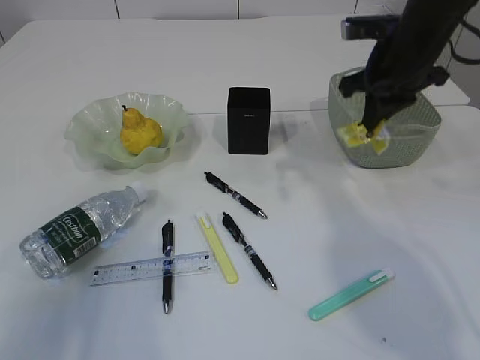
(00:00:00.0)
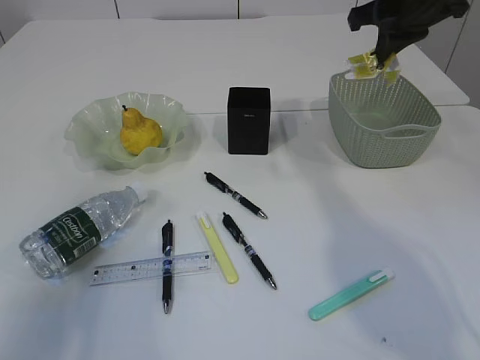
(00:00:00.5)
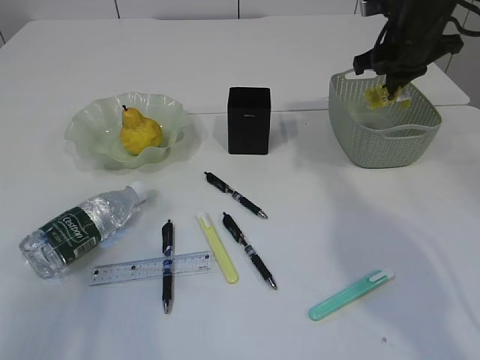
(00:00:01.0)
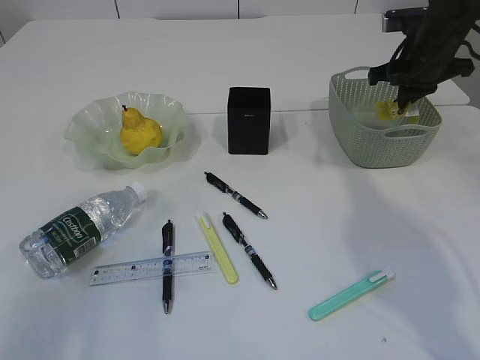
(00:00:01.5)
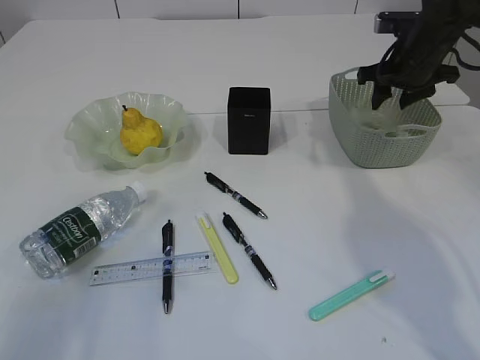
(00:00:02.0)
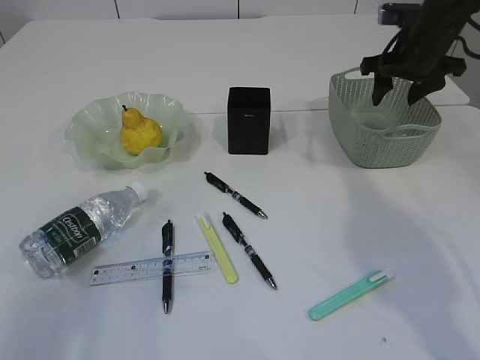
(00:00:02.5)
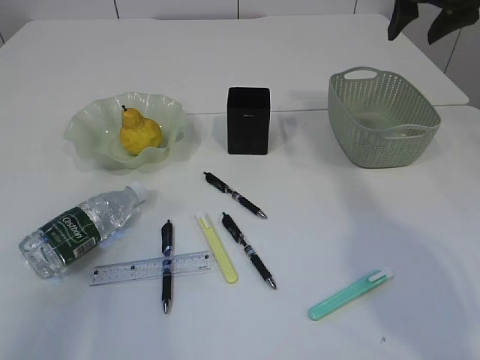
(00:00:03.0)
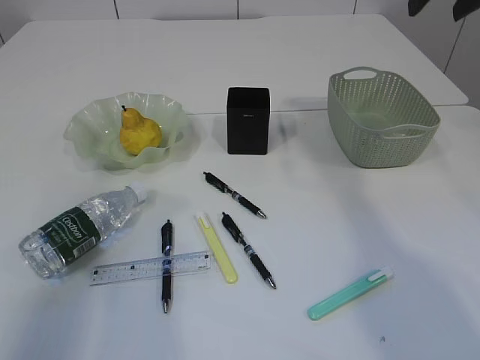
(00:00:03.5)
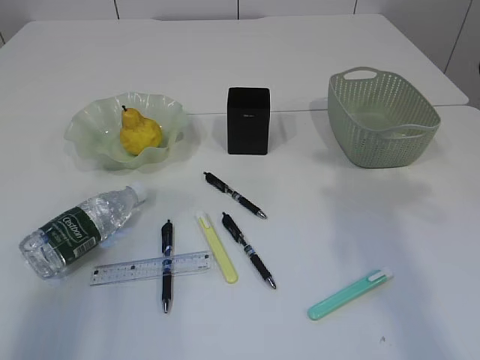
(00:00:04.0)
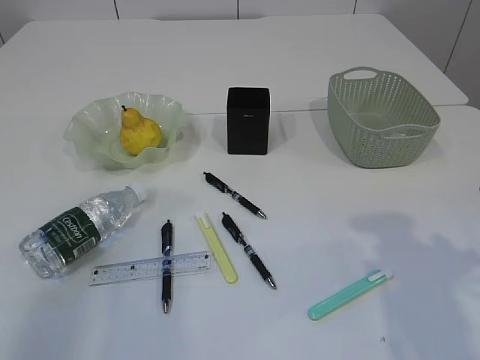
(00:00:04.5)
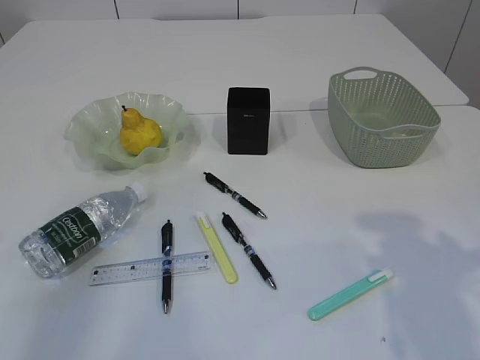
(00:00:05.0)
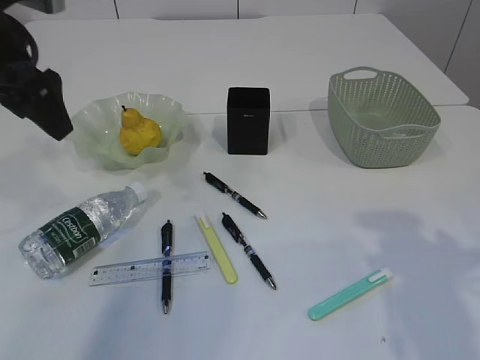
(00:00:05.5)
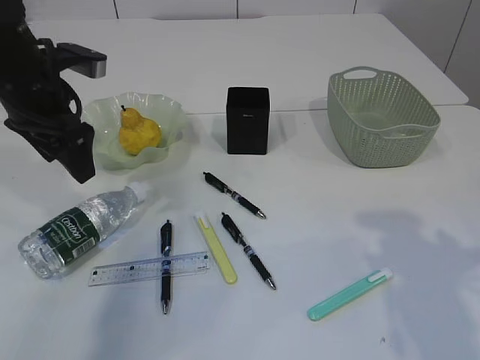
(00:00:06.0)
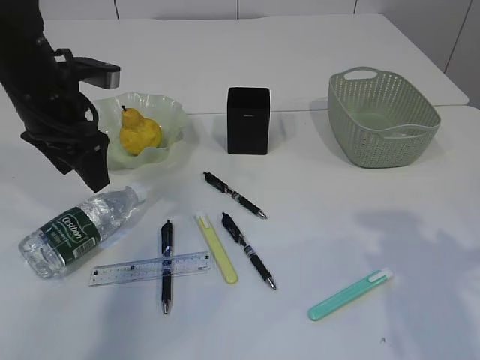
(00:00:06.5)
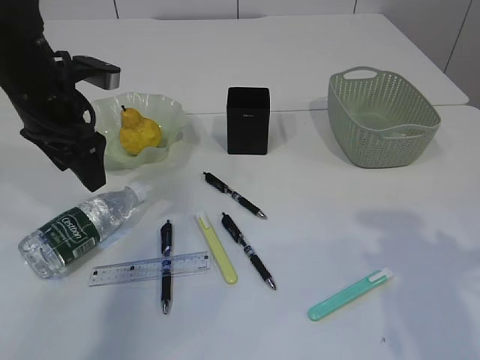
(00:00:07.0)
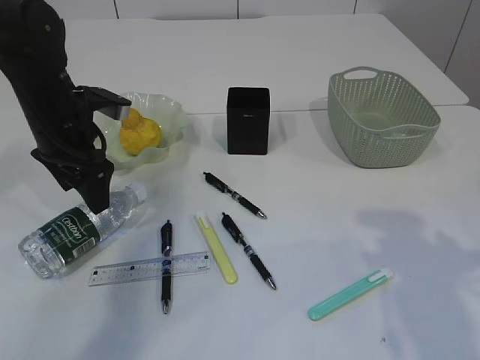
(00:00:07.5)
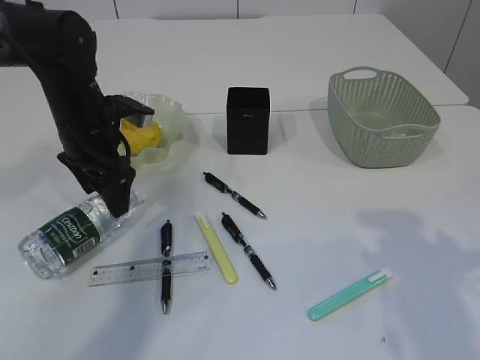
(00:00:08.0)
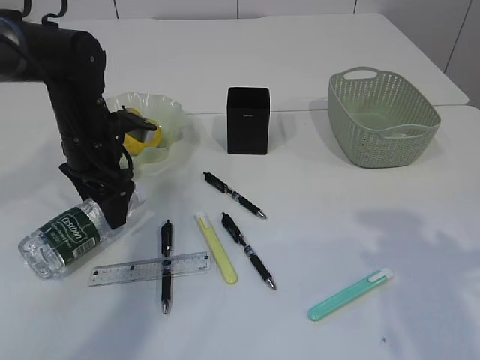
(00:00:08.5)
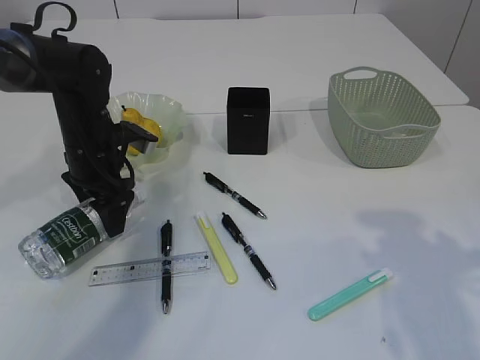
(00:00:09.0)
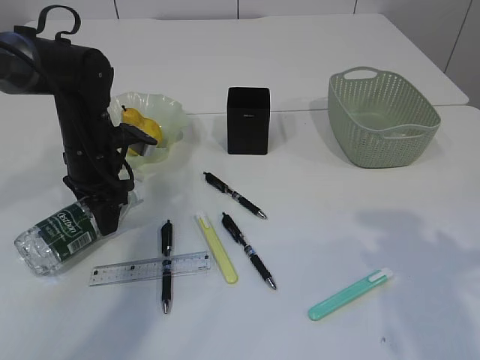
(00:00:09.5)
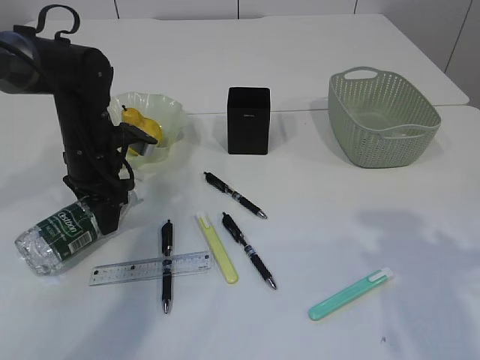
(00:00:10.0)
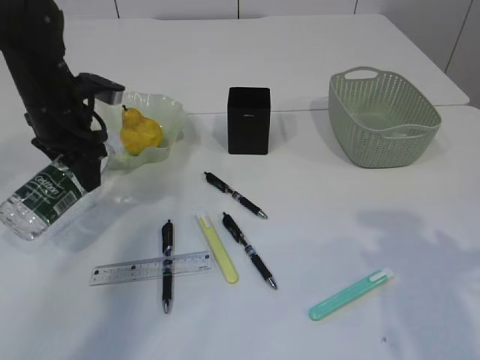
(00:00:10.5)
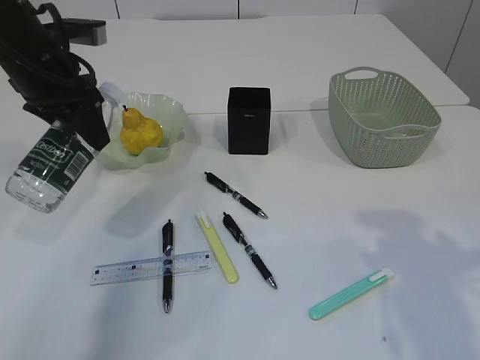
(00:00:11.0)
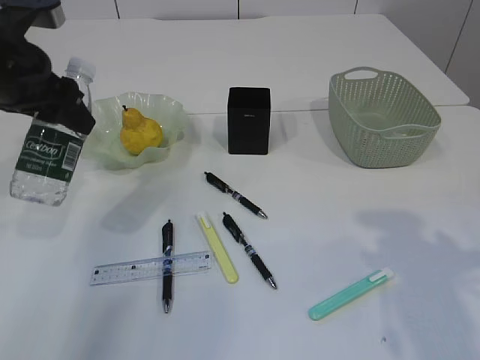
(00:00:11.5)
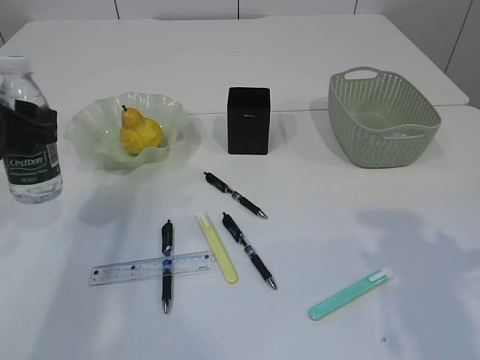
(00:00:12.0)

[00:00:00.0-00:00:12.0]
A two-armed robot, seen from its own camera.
Step, 00:00:00.0 to 00:00:02.5: Place the plastic in the basket.
Step, 00:00:03.0 to 00:00:11.0: Pick up the bottle with the left arm.
00:00:00.0 to 00:00:02.0: The right gripper goes roughly 10 cm forward and to the right, goes upward and returns, roughly 5 cm each way, and opens its fingers.
00:00:02.0 to 00:00:04.0: The right gripper moves backward and upward, some 25 cm.
00:00:04.0 to 00:00:06.0: The left gripper heads forward and to the right, covering some 20 cm, and opens, while the right gripper goes some 15 cm downward and backward.
00:00:06.0 to 00:00:08.0: The left gripper is displaced downward by approximately 5 cm.
00:00:08.0 to 00:00:10.0: The left gripper closes.
00:00:10.0 to 00:00:12.0: The left gripper is displaced backward, upward and to the left by approximately 15 cm.

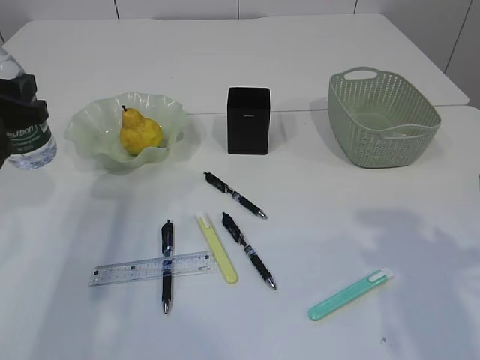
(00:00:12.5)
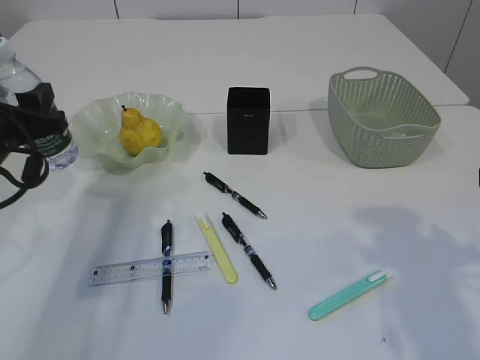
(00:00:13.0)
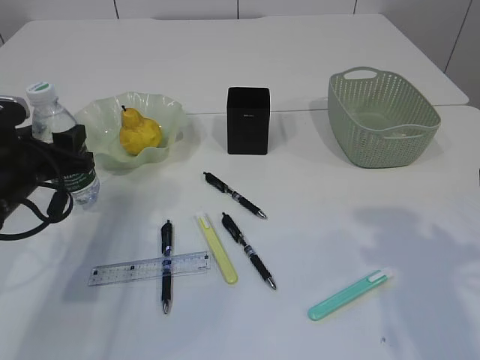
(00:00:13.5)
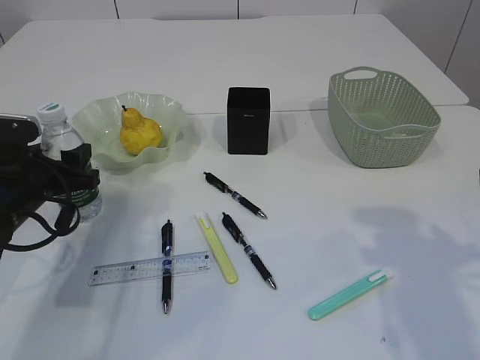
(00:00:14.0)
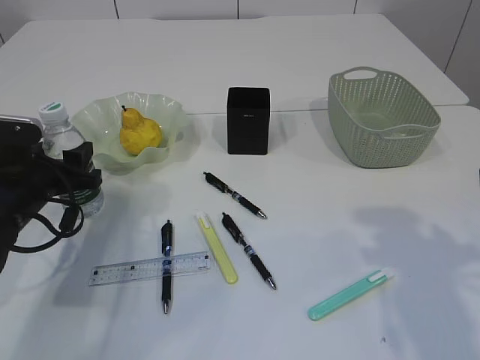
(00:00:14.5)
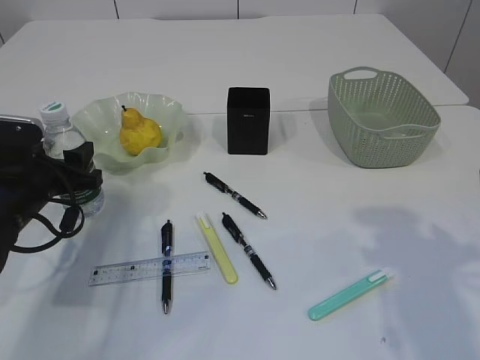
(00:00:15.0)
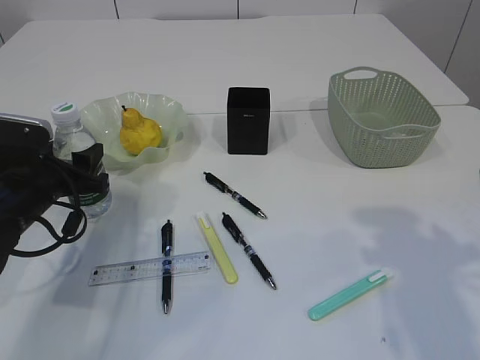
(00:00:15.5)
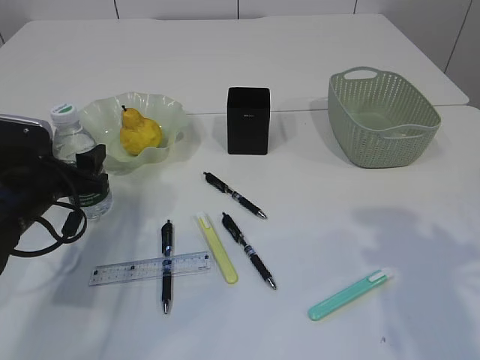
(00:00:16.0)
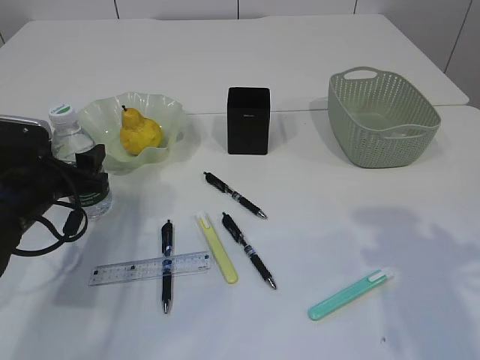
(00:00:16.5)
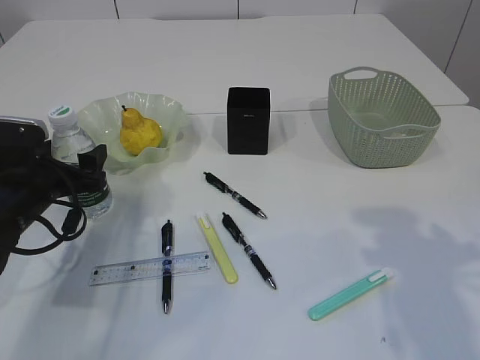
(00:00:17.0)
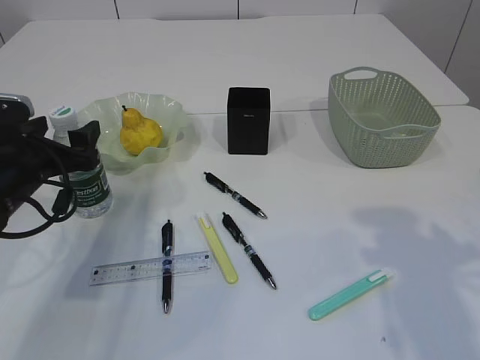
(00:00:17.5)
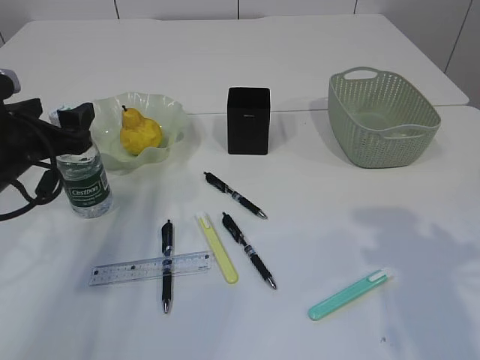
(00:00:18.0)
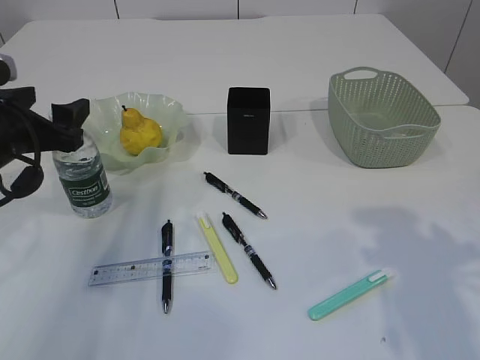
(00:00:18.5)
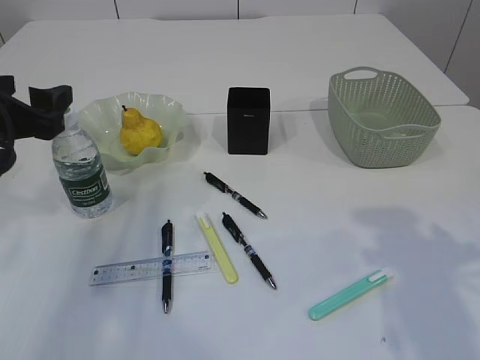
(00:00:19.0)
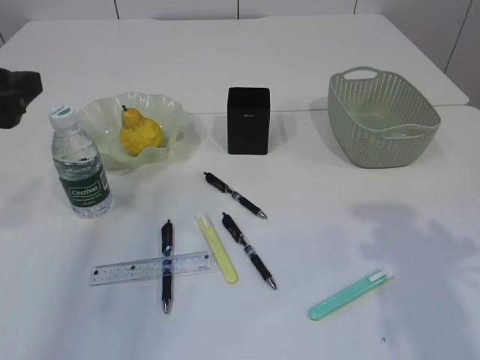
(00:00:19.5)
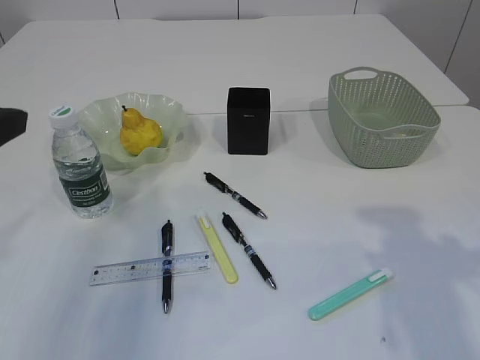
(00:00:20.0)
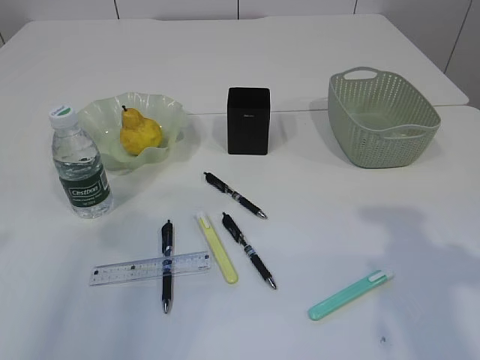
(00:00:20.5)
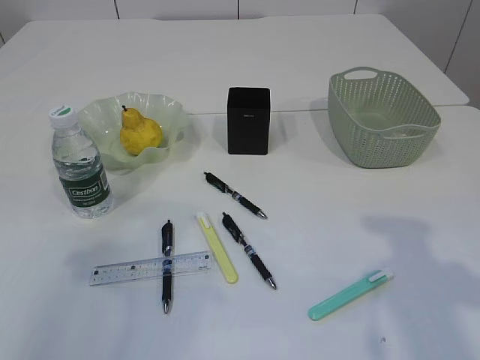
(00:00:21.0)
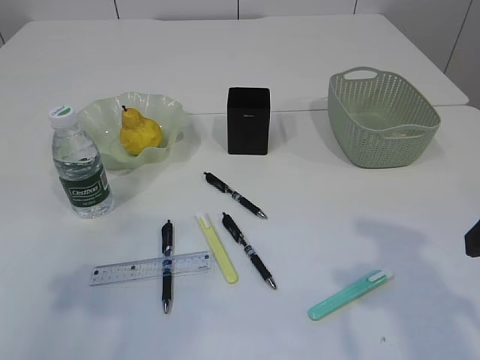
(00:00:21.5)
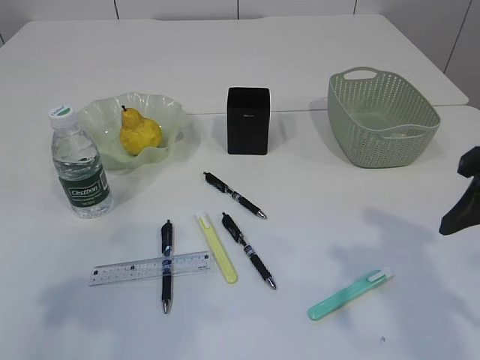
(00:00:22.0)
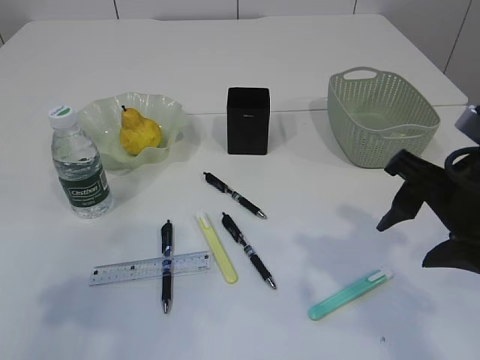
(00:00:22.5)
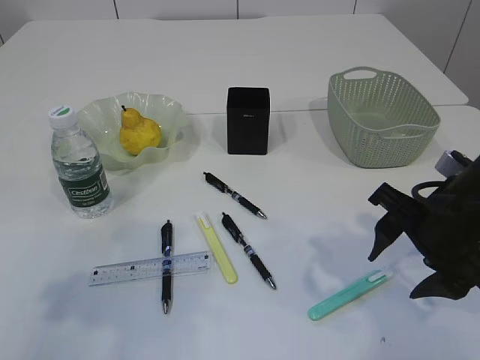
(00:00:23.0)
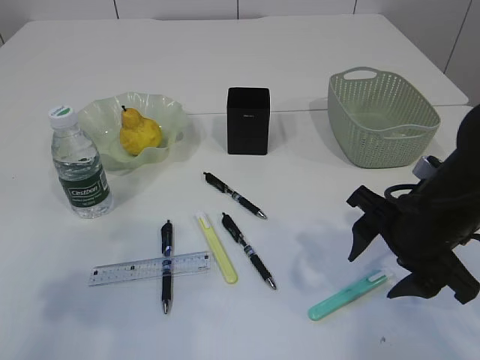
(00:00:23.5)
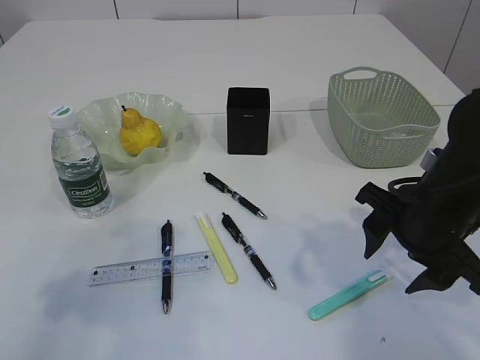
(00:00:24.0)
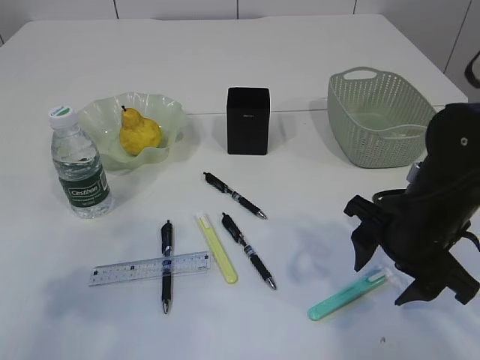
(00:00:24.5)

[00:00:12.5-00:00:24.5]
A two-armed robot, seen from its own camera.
Step, 00:00:12.5 to 00:00:18.5: Place the bottle.
00:00:12.5 to 00:00:14.5: The left gripper heads downward, covering roughly 10 cm.
00:00:14.5 to 00:00:16.5: Both grippers stay put.
00:00:16.5 to 00:00:18.5: The left gripper goes approximately 10 cm upward.
00:00:18.5 to 00:00:20.5: The left gripper is displaced upward and backward by some 15 cm.
00:00:20.5 to 00:00:22.5: The right gripper goes some 10 cm to the left.
00:00:22.5 to 00:00:24.5: The right gripper shifts approximately 5 cm downward.

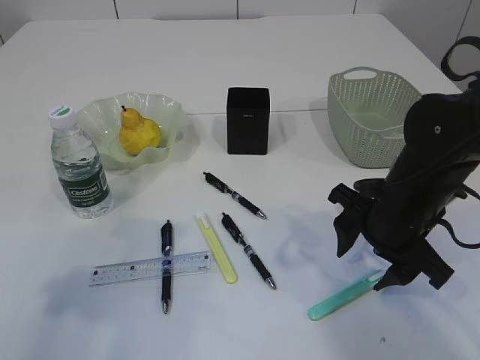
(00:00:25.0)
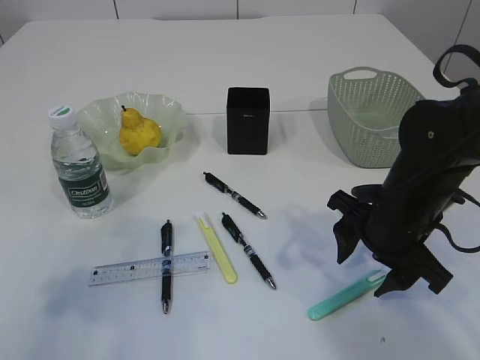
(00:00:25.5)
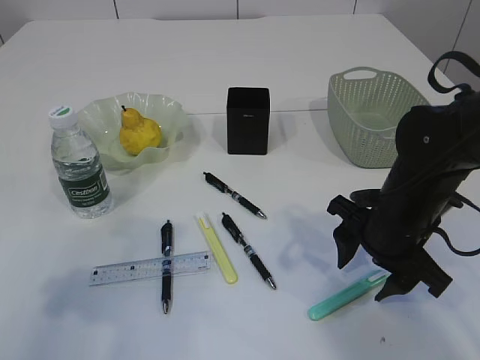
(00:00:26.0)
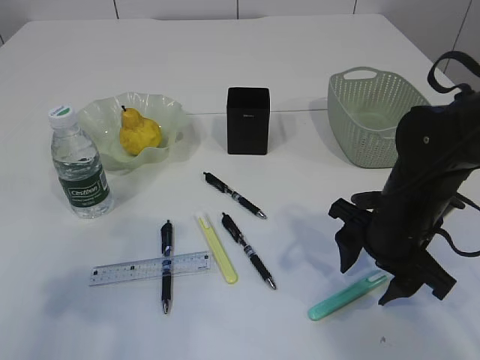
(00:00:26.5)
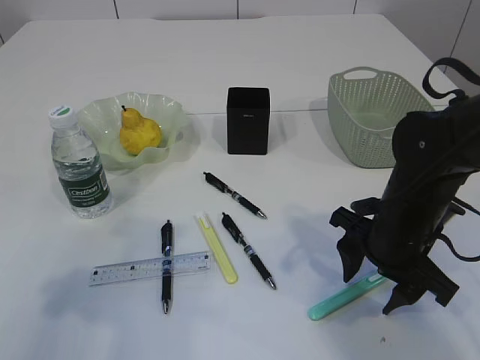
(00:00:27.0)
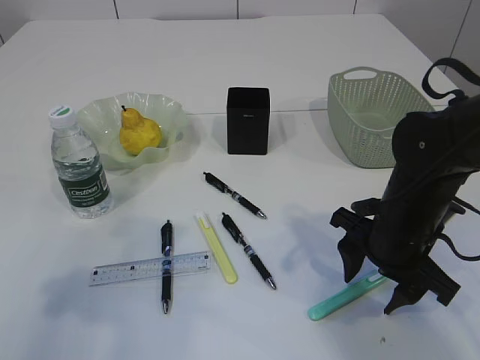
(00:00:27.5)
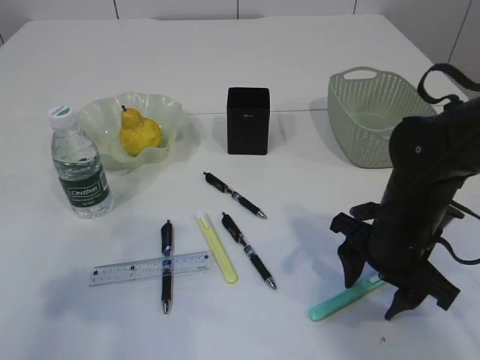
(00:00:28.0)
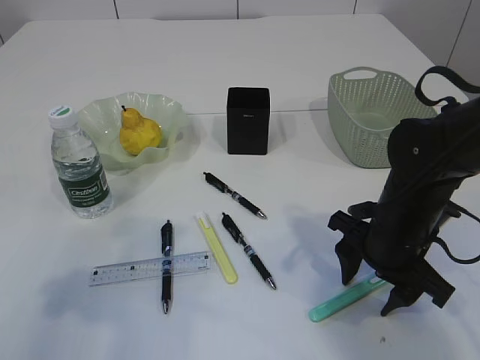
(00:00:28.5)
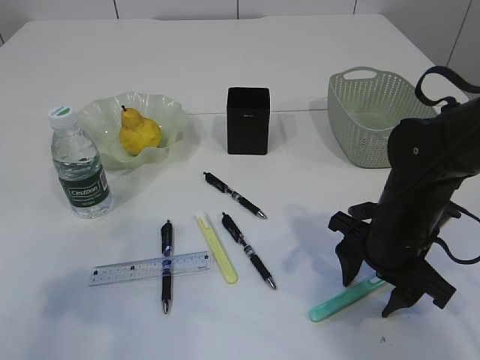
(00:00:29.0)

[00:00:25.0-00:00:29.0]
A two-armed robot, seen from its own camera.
00:00:25.0 to 00:00:27.0: The grippers stay close to where they were, moving slightly.
00:00:27.0 to 00:00:29.0: The two grippers keep their place.
